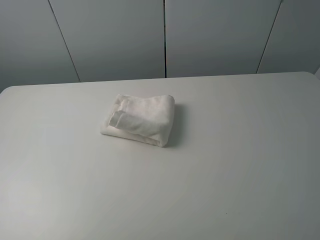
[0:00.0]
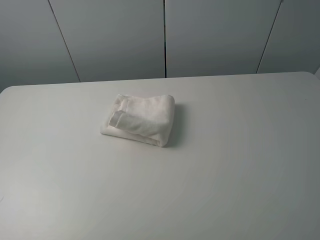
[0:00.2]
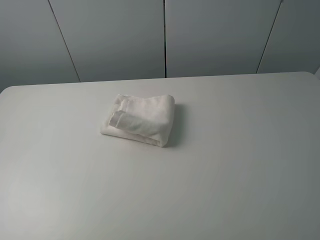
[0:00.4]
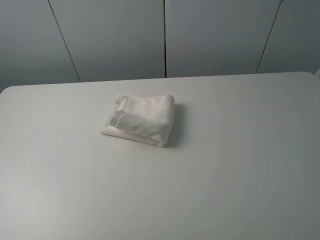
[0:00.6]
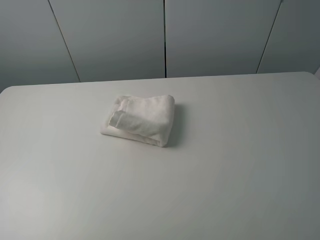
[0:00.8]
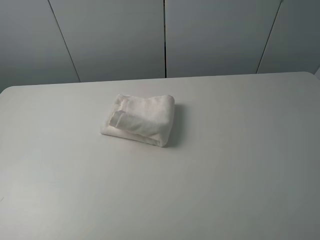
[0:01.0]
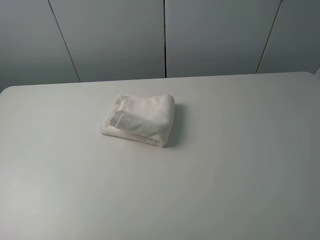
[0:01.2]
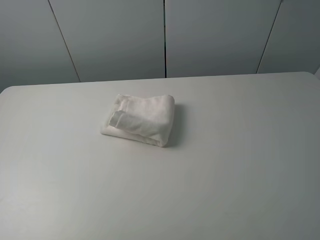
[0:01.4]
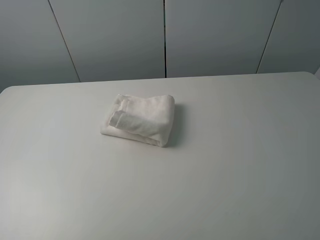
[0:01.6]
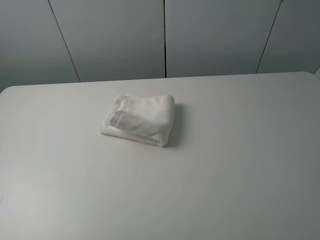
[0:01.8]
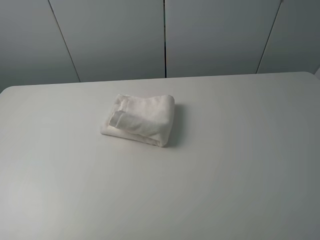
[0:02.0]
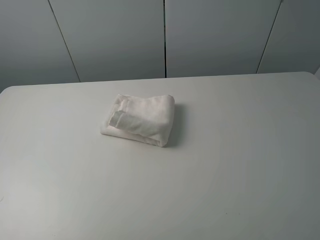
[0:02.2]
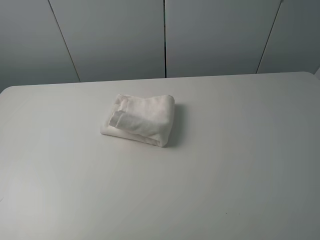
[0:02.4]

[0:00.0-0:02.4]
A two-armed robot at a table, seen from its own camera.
Task of the whole recording: fold the towels on the table.
0:01.2 to 0:02.4: Both grippers stay put.
